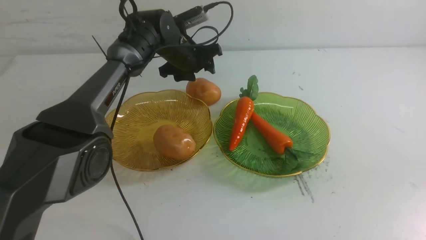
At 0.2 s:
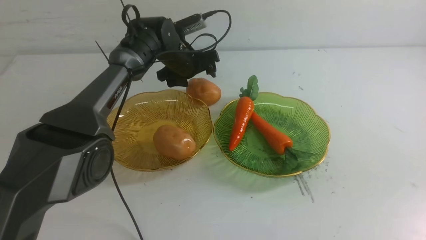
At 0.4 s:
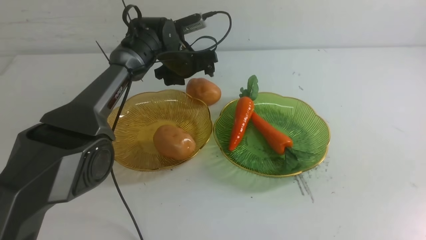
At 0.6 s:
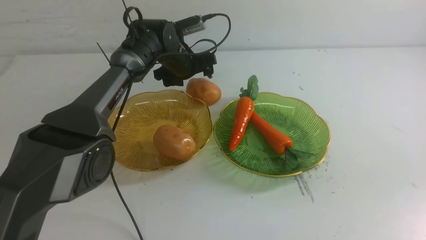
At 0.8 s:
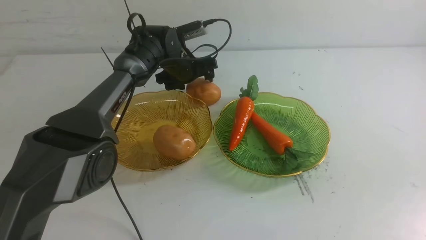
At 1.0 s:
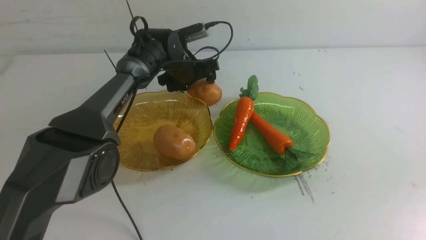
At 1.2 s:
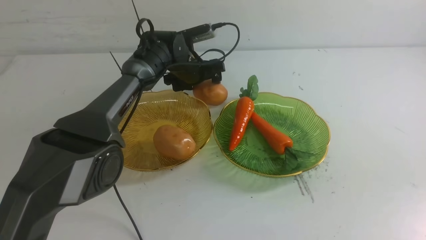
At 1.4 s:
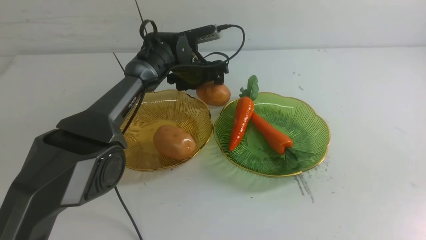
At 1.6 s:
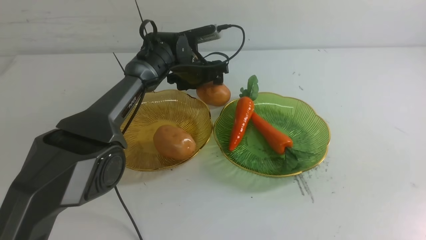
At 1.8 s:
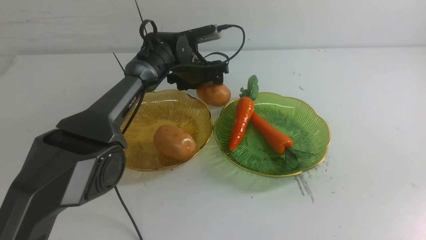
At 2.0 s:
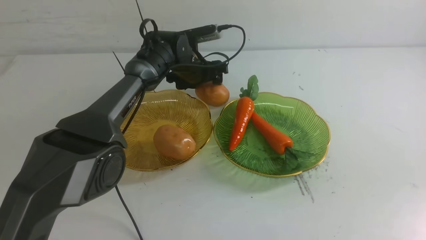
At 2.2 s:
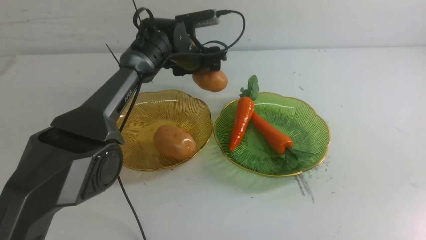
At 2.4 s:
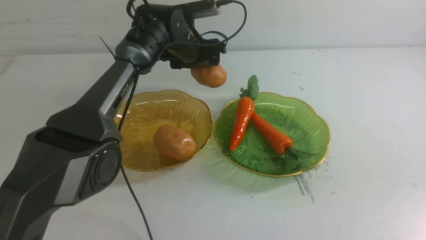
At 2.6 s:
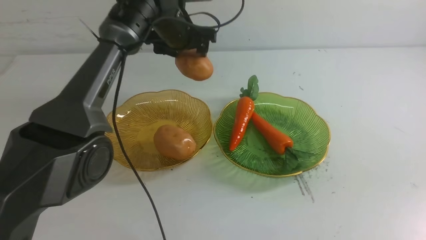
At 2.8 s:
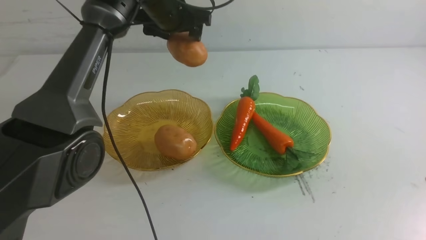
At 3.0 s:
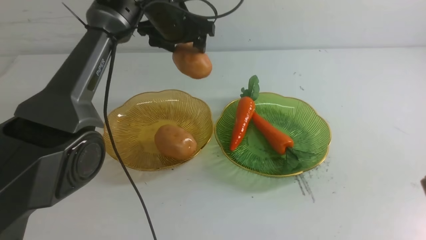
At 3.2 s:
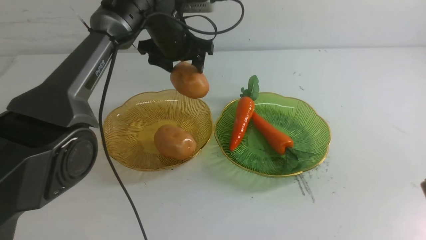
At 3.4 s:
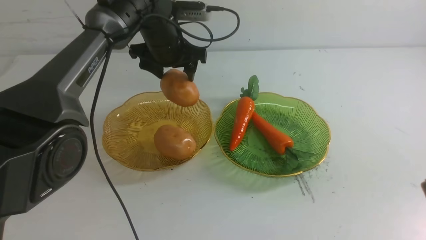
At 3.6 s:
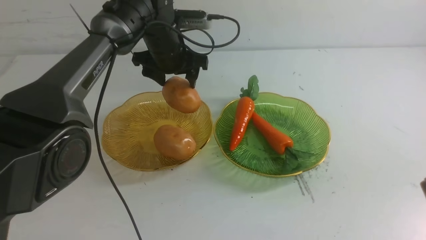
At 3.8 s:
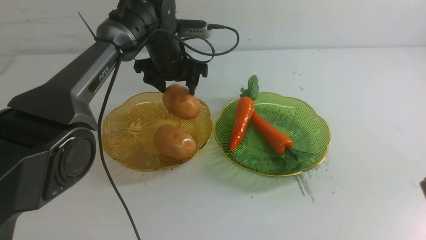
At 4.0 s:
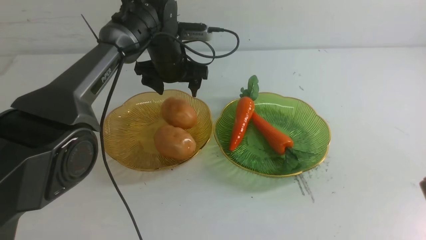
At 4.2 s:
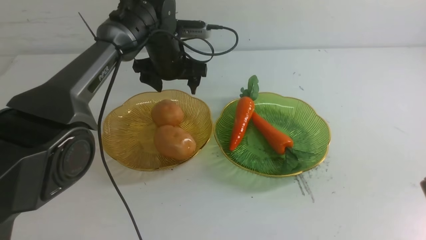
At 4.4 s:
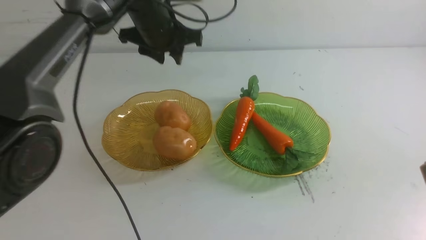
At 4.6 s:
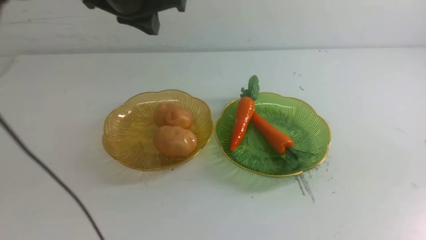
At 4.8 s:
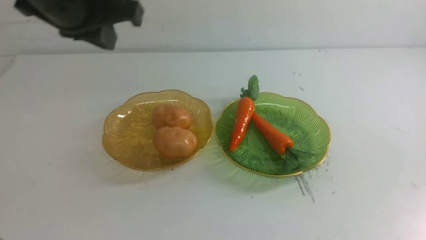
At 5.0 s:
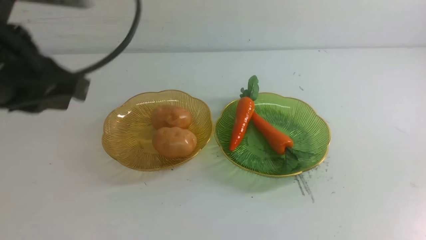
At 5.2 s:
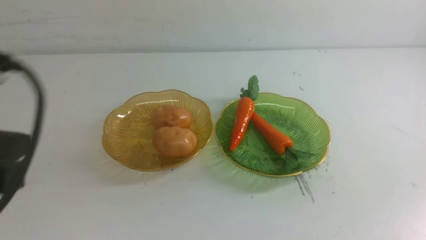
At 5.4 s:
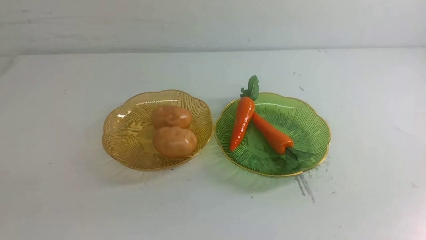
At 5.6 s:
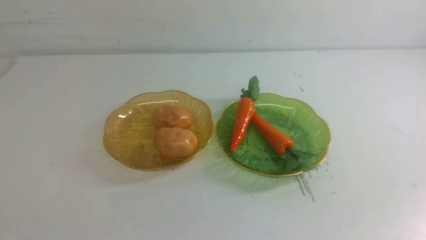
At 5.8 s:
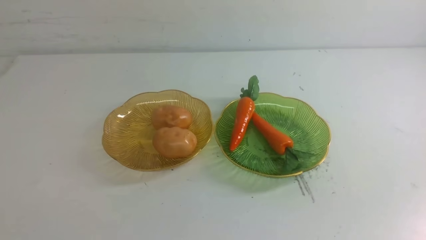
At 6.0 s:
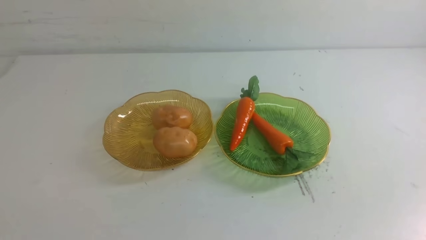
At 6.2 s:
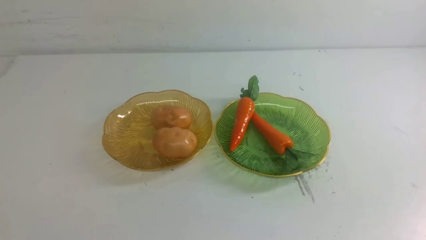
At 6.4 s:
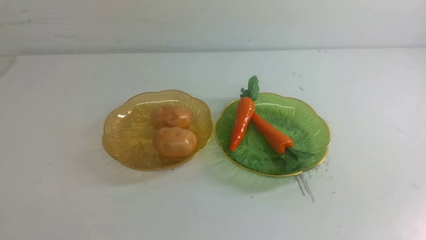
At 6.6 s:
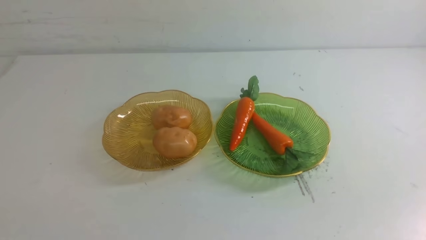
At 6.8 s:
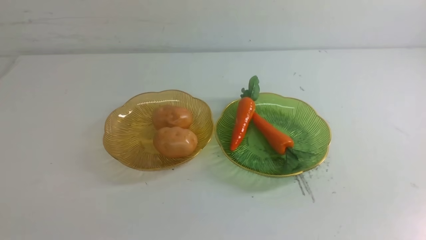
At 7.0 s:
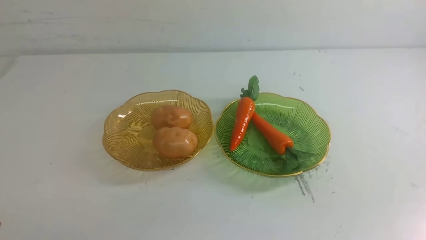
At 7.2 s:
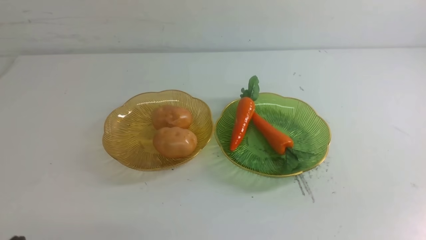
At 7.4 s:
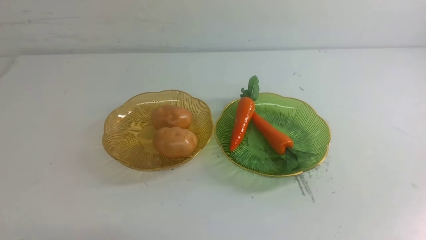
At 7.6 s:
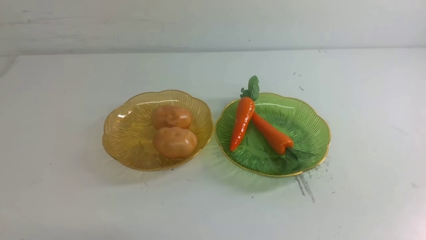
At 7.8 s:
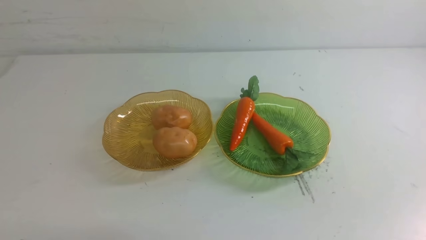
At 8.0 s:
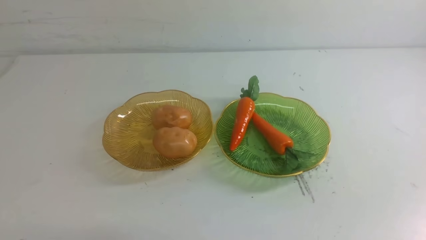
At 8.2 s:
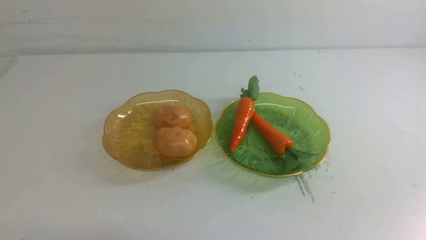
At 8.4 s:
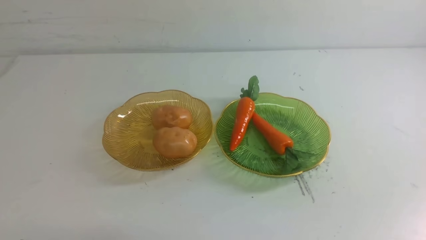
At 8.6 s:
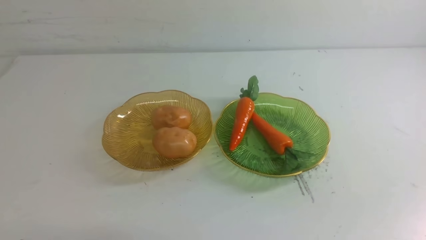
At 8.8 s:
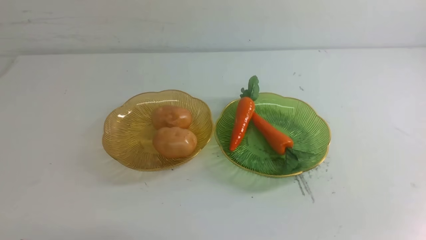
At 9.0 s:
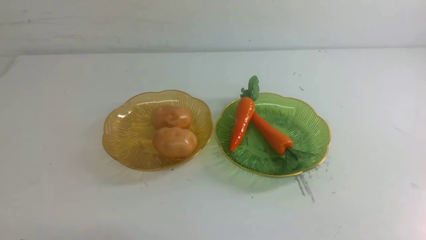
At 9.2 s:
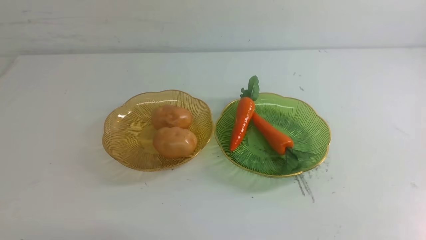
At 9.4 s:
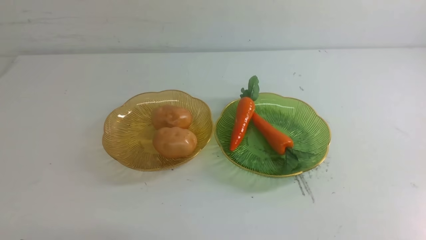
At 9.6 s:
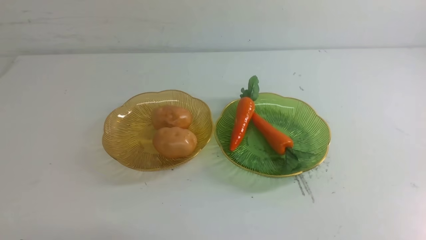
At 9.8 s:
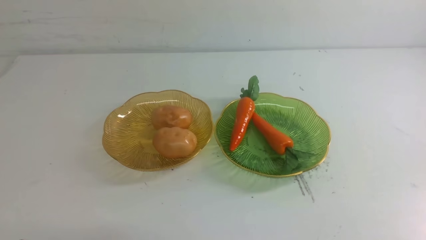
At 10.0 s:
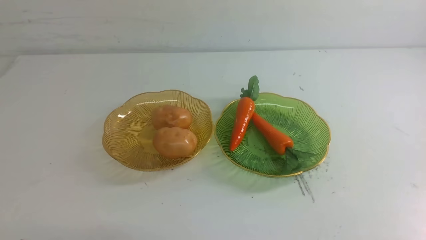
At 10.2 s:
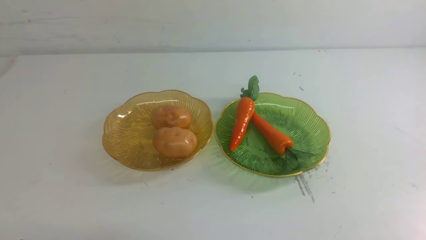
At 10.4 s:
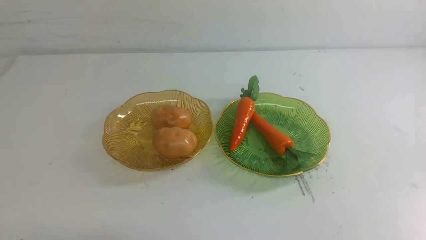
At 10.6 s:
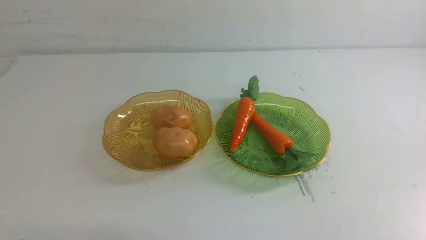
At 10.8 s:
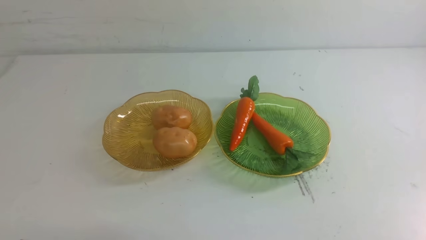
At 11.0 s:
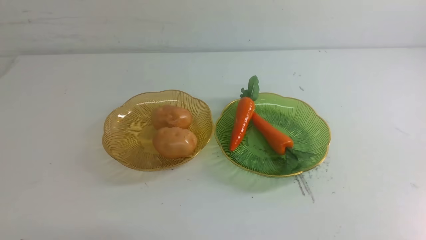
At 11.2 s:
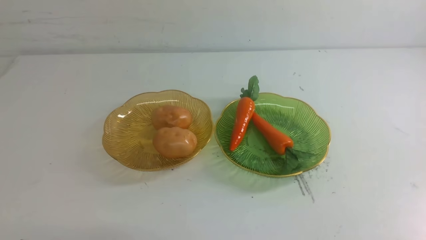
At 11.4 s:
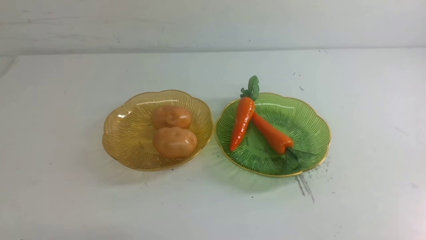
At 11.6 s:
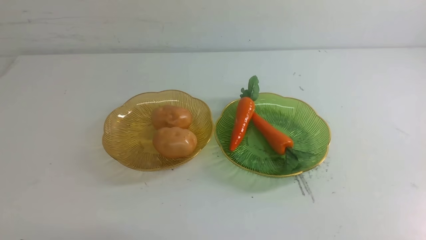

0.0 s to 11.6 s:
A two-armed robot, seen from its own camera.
Step, 0.0 to 4.4 s: Grab a potato with your left arm and put it on the left plate.
0.0 to 1.4 s: The grippers make only small movements.
1.4 to 2.8 s: The left gripper goes about 15 cm upward.
2.8 to 4.4 s: The left gripper moves backward, roughly 5 cm, reaches about 5 cm downward, then returns, and closes its fingers.
4.4 to 5.8 s: The left gripper shifts about 40 cm backward, and closes, while the right gripper travels backward and to the right by some 10 cm.
10.2 to 11.6 s: Both grippers stay about where they are.

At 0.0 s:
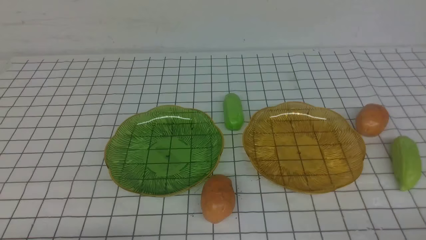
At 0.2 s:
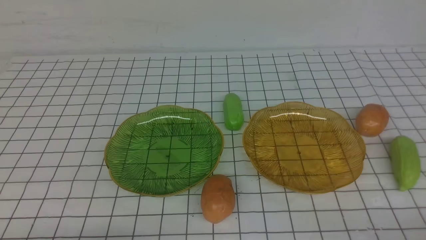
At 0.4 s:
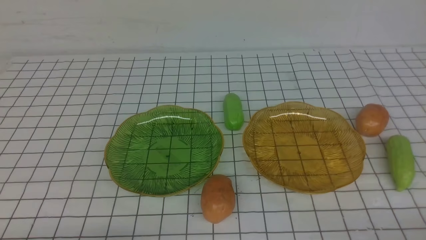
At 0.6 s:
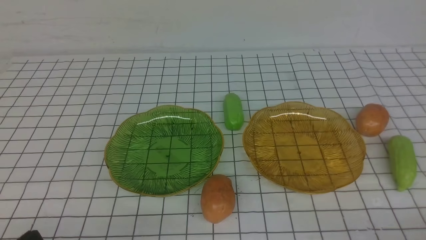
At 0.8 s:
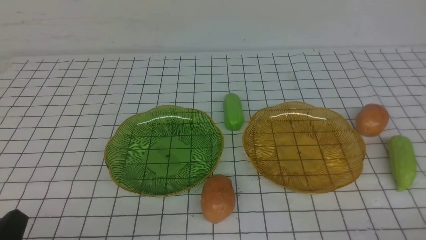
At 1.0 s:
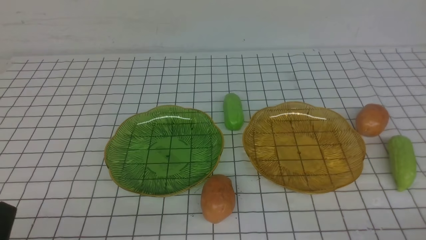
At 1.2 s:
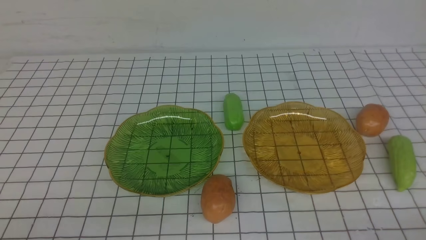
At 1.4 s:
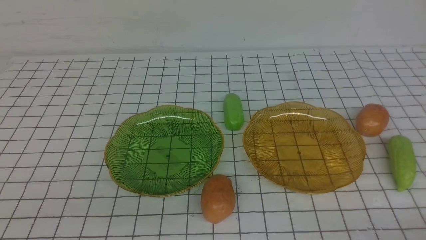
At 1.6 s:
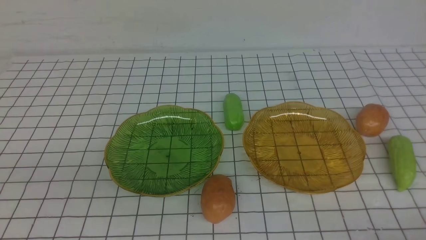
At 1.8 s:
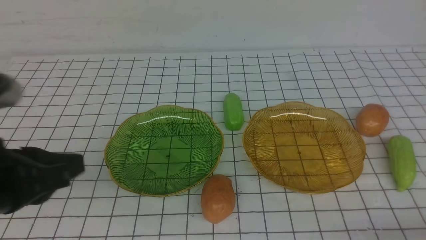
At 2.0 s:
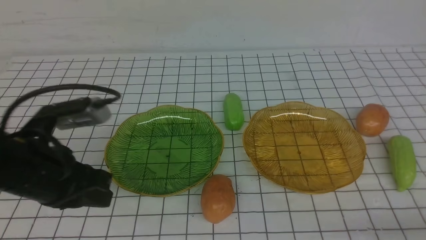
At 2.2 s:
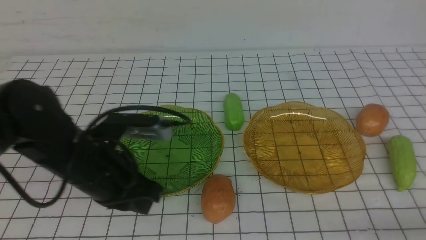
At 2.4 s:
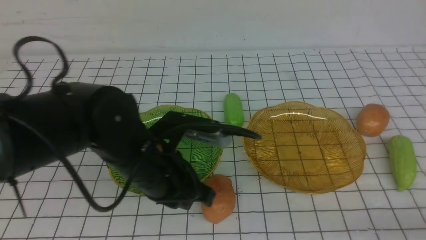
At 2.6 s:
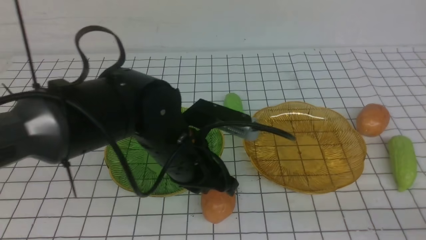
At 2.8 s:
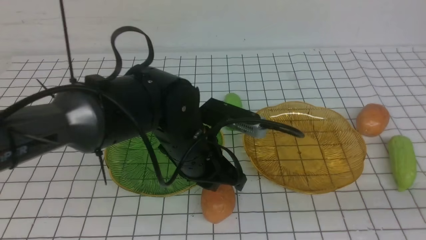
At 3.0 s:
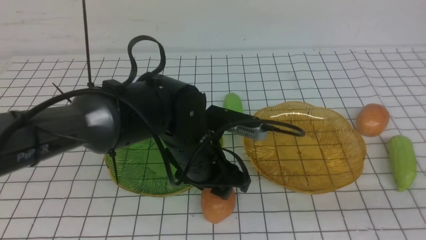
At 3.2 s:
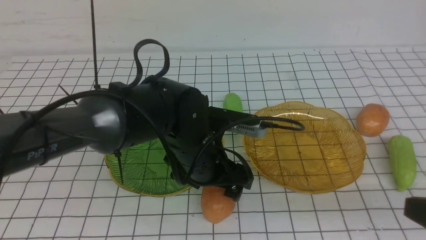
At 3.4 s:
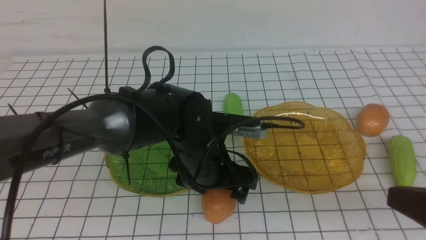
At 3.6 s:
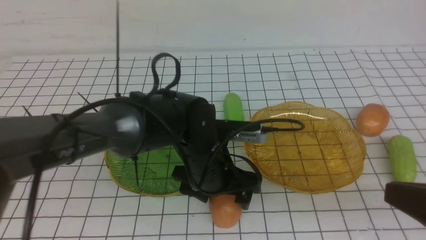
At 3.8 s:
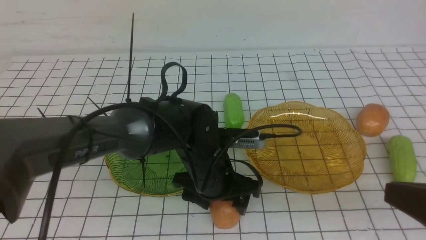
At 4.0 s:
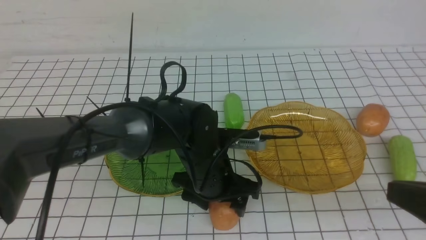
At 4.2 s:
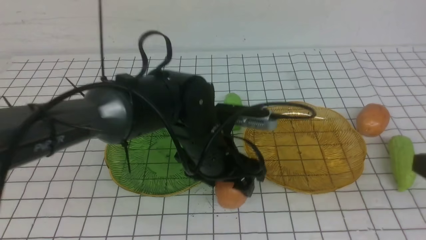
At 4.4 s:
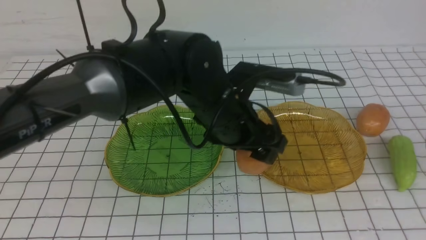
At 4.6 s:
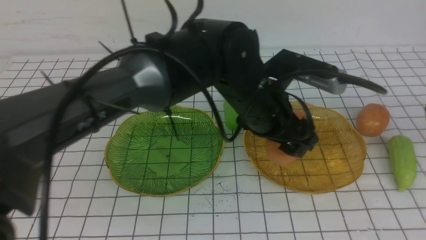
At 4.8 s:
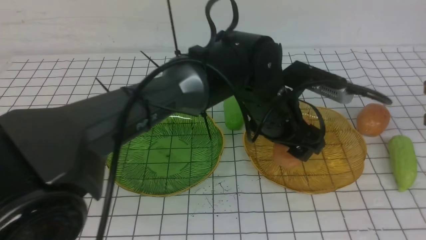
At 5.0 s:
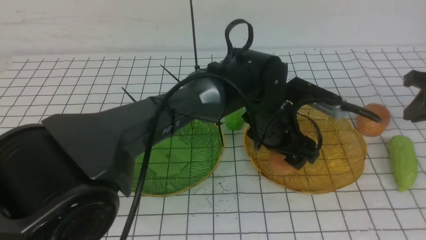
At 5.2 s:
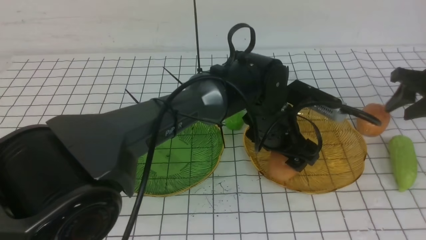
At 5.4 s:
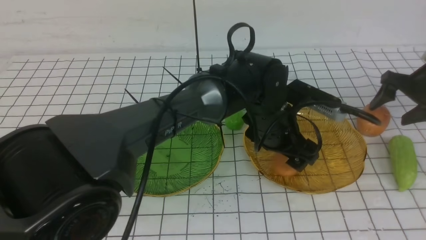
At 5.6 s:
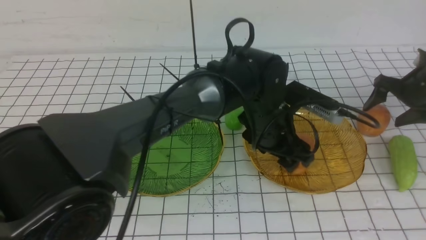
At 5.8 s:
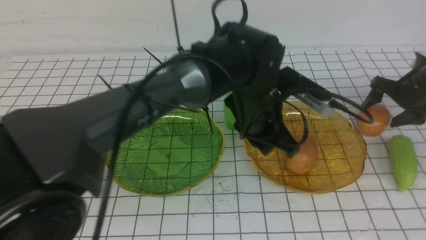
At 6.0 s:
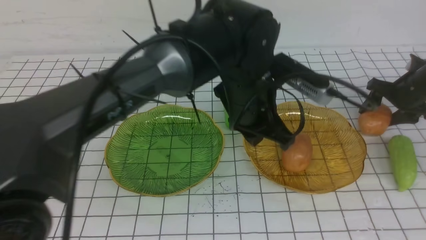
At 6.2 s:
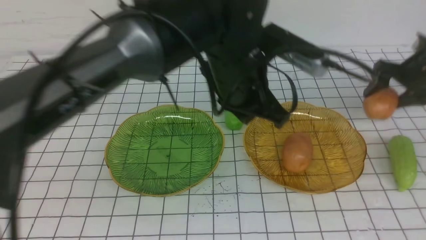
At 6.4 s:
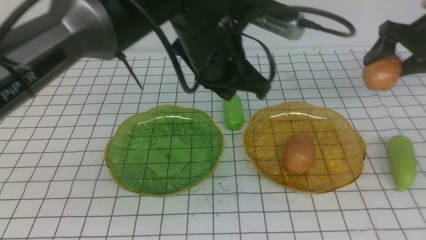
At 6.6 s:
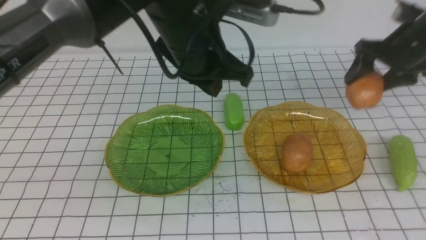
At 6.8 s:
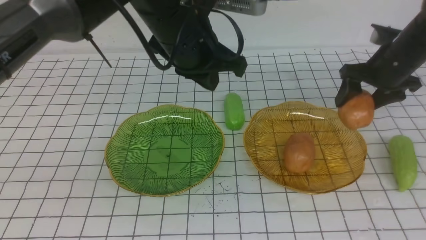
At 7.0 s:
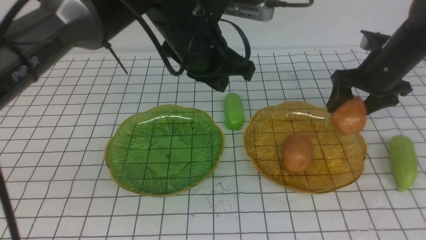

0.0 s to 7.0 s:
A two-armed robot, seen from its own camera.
Step, 0.0 to 5.6 s: Grab a potato with your left arm and put it on the right plate.
1.4 to 2.8 s: The right gripper heads upward, covering about 10 cm; the left gripper goes some 30 cm forward and to the right.
2.8 to 4.2 s: The left gripper opens, while the right gripper is displaced forward by about 5 cm.
4.2 to 5.6 s: The left gripper goes approximately 5 cm to the right; the right gripper moves forward and downward, about 35 cm, and opens its fingers.
5.6 to 7.0 s: The left gripper goes approximately 15 cm upward and to the left, and closes up. Meanwhile the right gripper goes roughly 10 cm to the left and upward.
